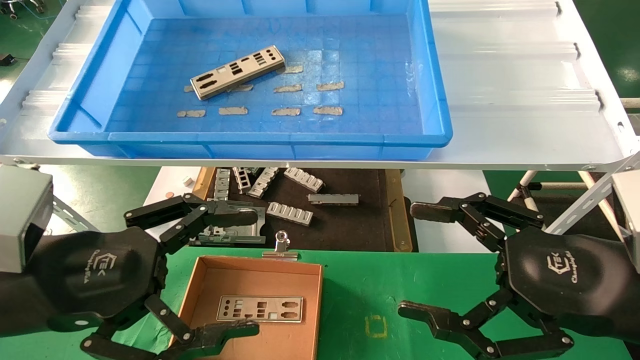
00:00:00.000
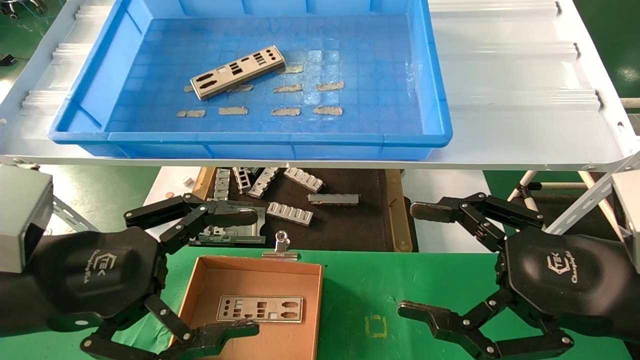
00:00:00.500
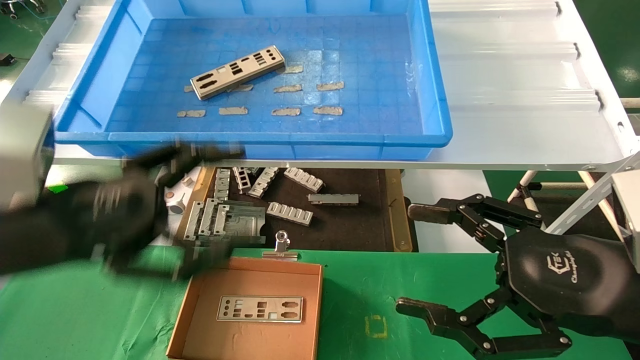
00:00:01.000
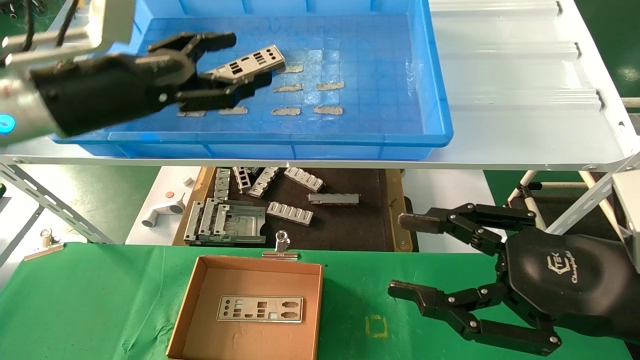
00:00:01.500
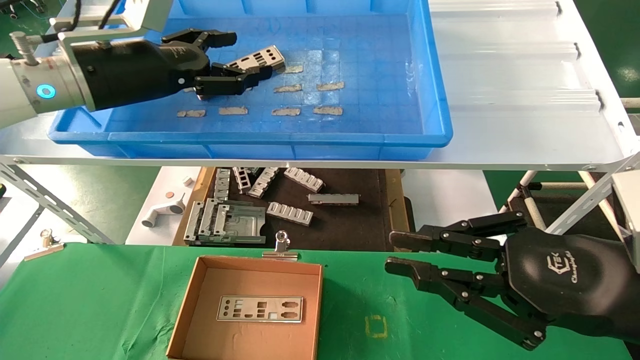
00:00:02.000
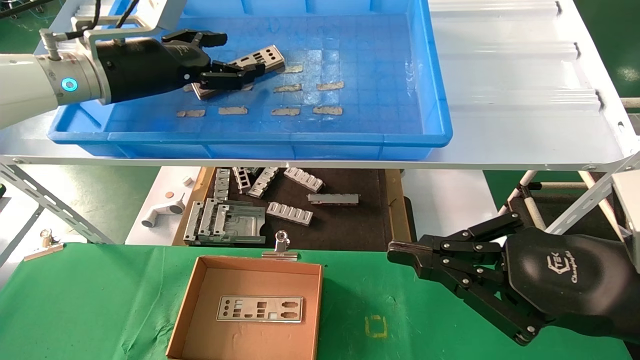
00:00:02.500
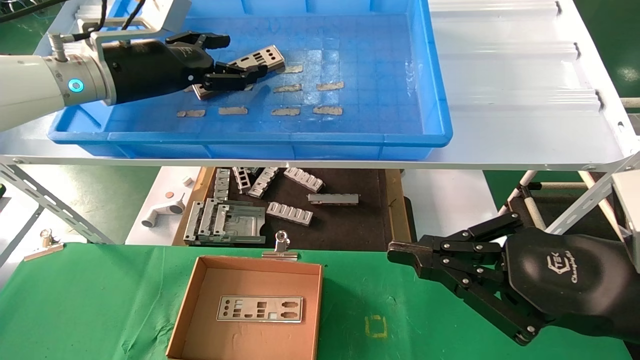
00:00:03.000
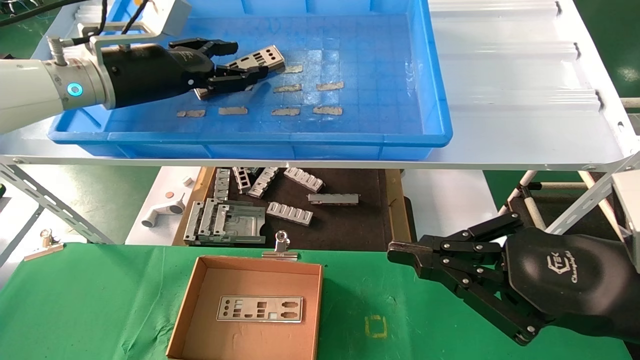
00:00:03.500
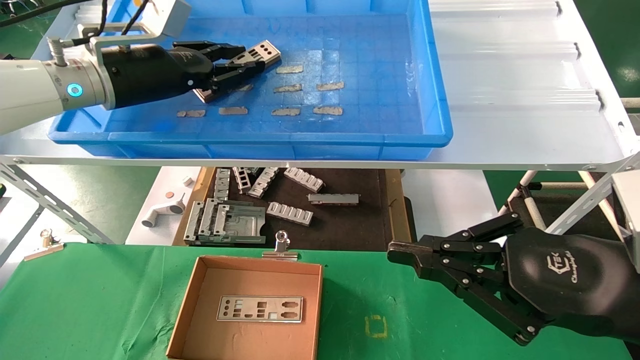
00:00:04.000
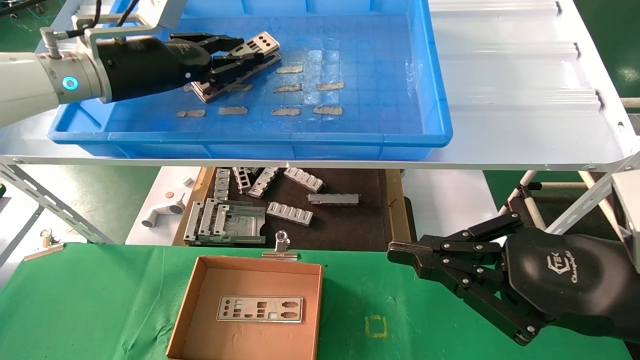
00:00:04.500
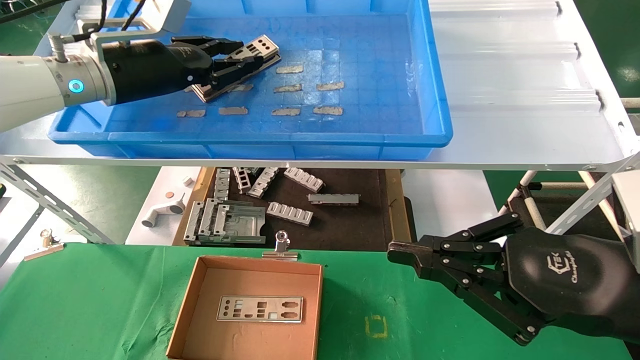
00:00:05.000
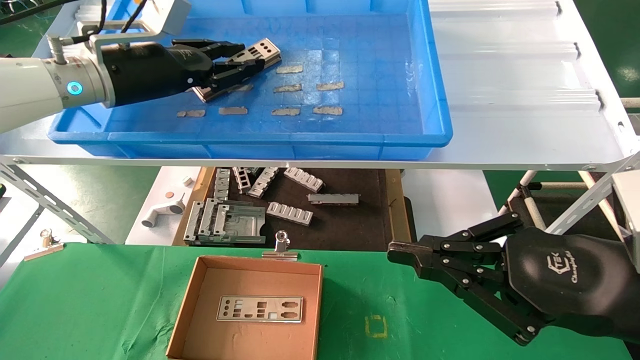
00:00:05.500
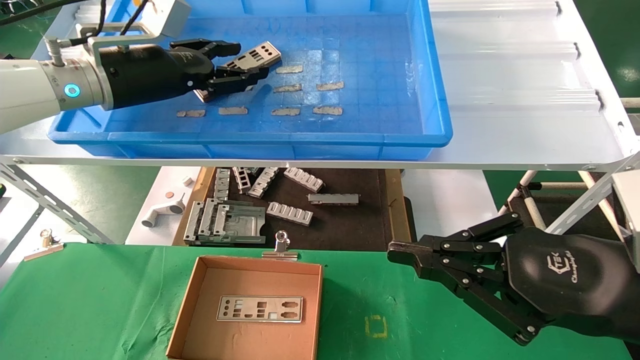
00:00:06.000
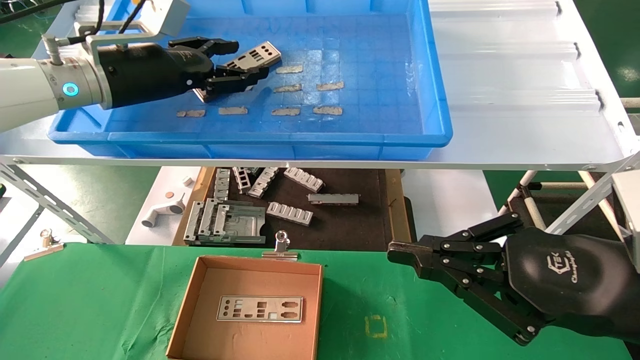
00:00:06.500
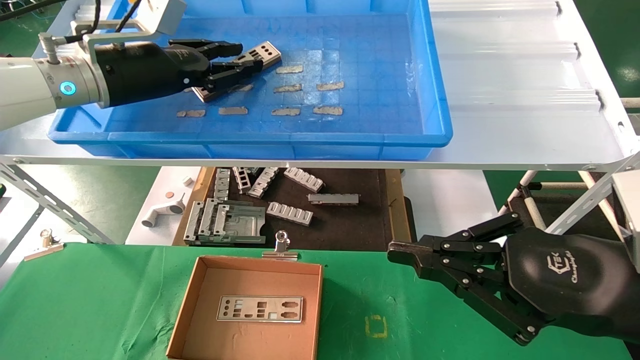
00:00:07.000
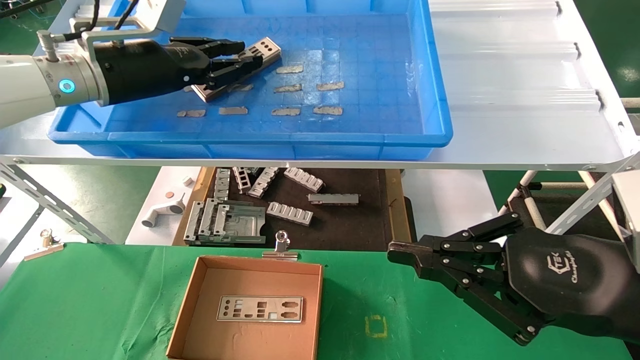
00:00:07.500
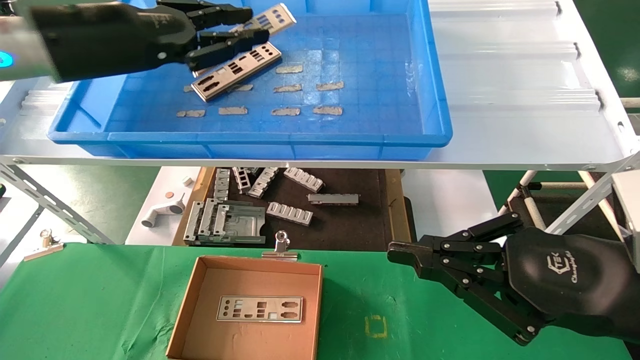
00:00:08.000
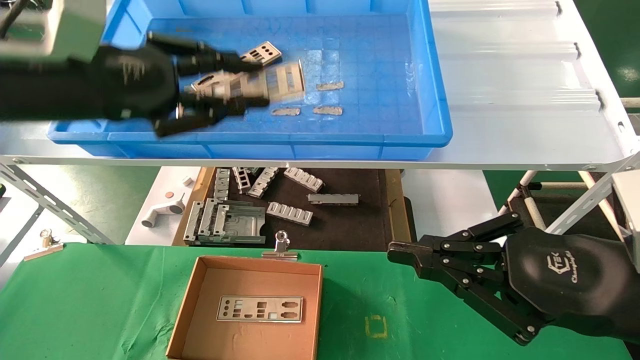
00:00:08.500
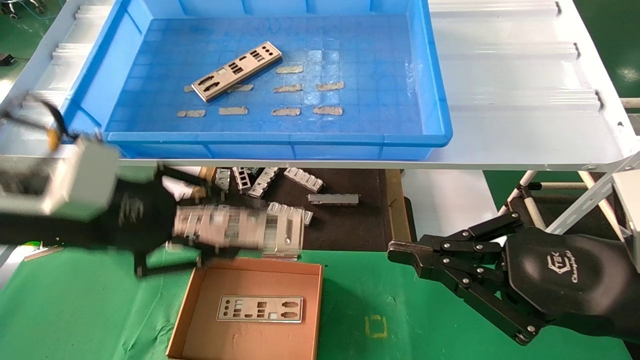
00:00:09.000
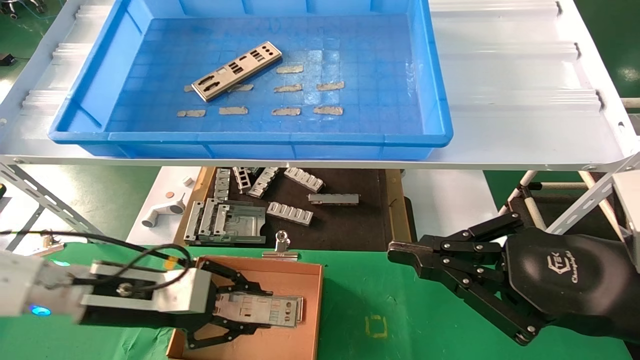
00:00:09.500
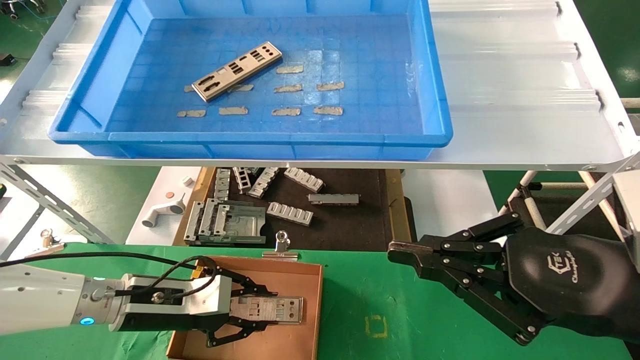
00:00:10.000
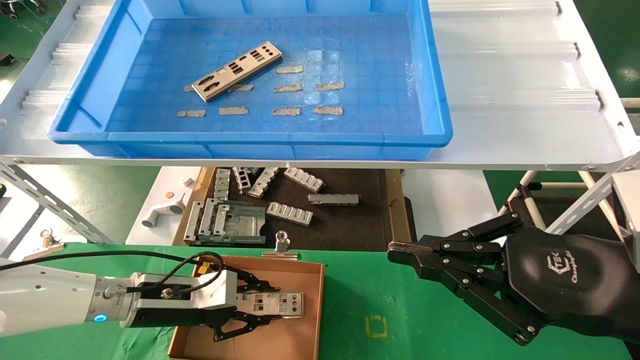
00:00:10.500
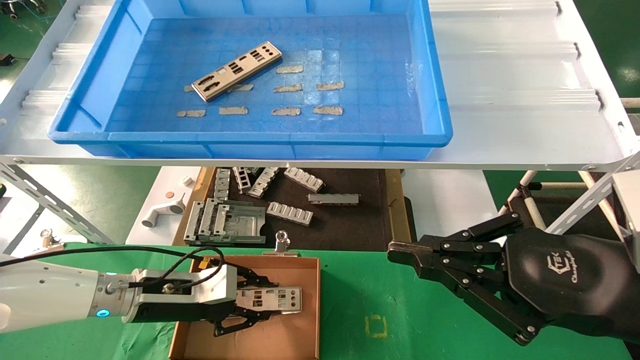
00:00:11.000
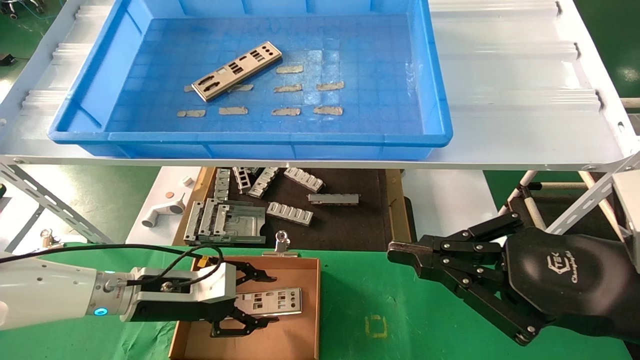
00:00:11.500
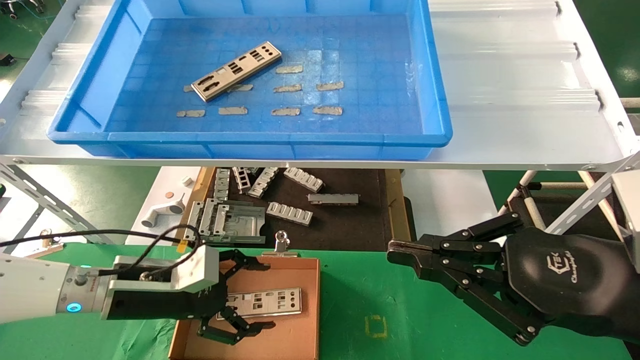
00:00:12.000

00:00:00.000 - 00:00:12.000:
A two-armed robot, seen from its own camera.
Task of the whole recording: pick up the parts on the tray and put them in the cardboard box.
Step, 00:00:01.500 - 00:00:07.500: Pick up the IO bracket from the container box.
Step, 00:00:08.000 - 00:00:11.000: Place the IO bracket into the ingredient slot.
00:00:00.000 - 00:00:02.000: The right gripper closes up. Meanwhile the left gripper moves forward and upward, roughly 25 cm.
00:00:02.000 - 00:00:04.000: The left gripper closes up.
00:00:04.000 - 00:00:06.000: Both grippers stay put.
00:00:06.000 - 00:00:08.000: The left gripper heads backward, covering roughly 5 cm, and closes up.
00:00:08.000 - 00:00:10.000: The left gripper is displaced downward by approximately 30 cm.
00:00:10.000 - 00:00:12.000: The left gripper opens up.

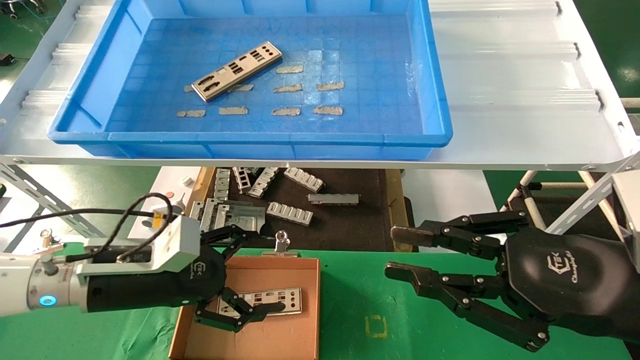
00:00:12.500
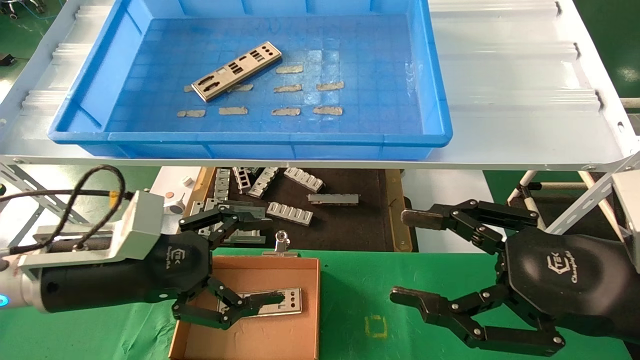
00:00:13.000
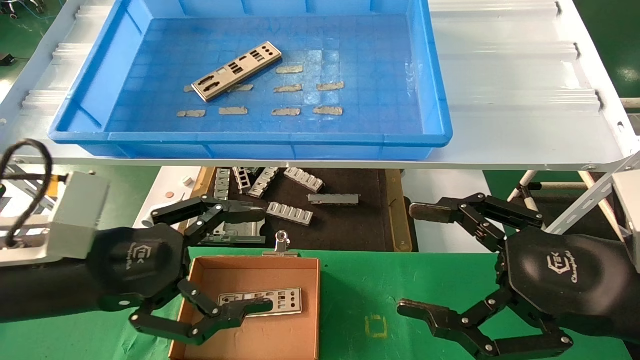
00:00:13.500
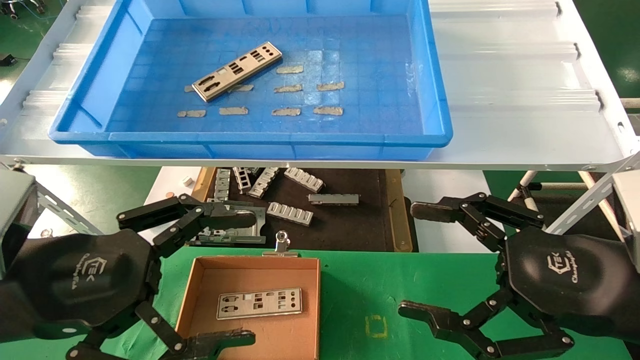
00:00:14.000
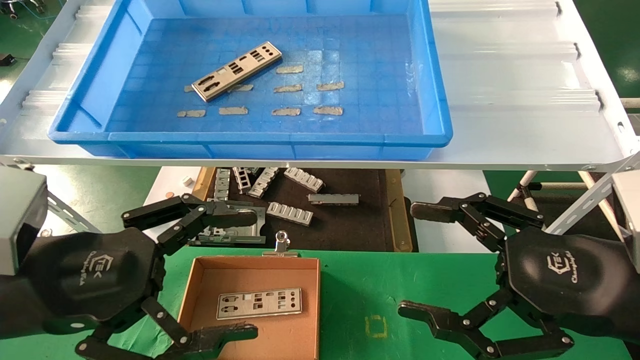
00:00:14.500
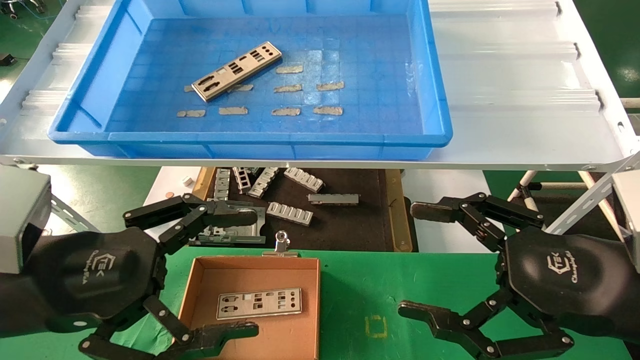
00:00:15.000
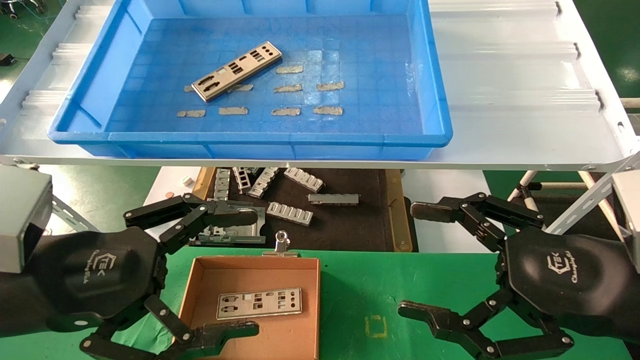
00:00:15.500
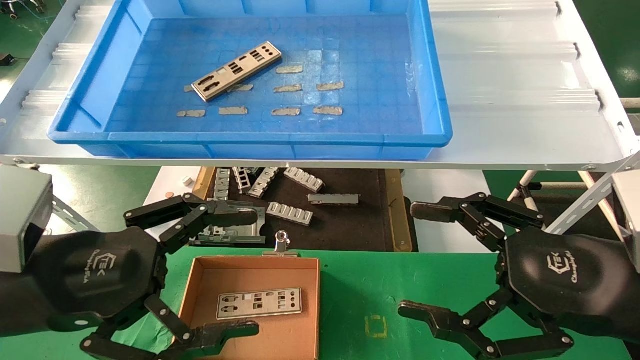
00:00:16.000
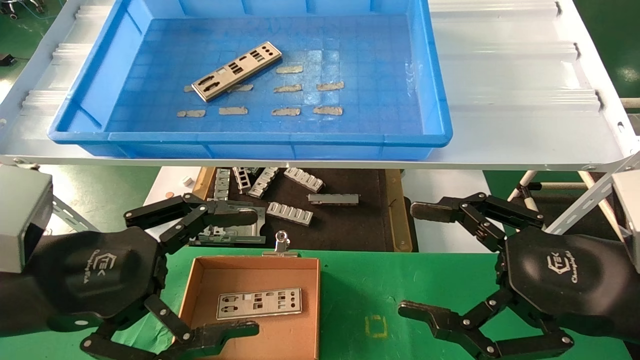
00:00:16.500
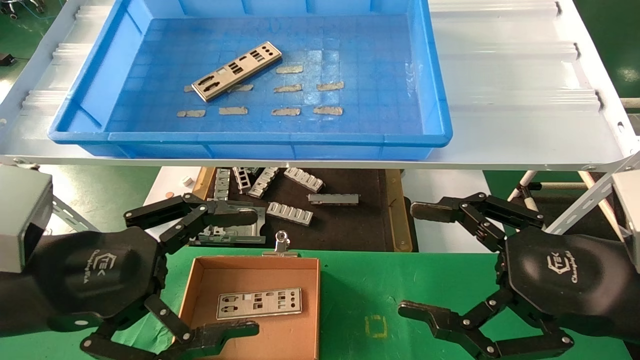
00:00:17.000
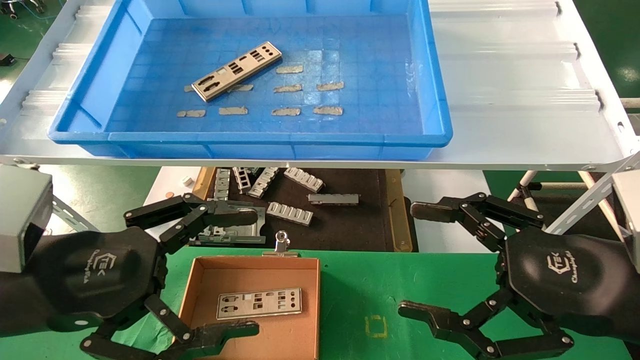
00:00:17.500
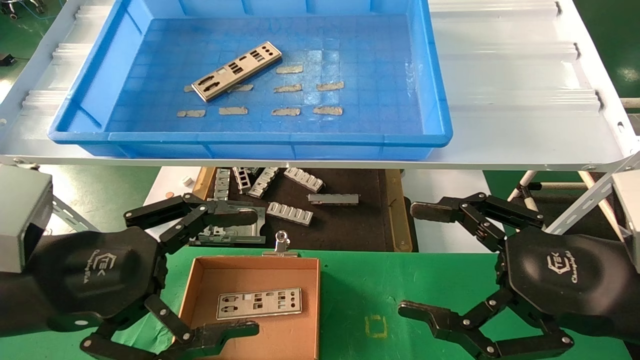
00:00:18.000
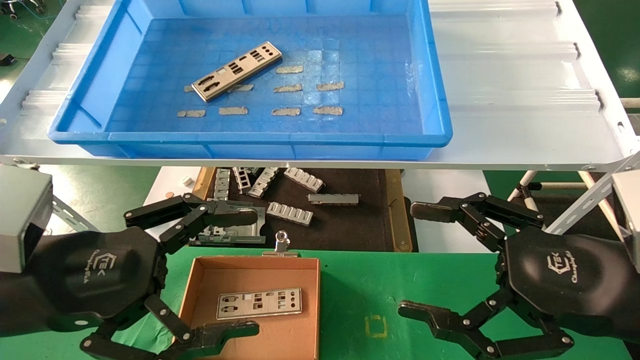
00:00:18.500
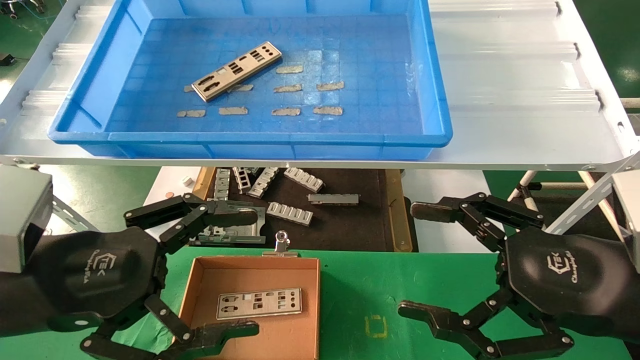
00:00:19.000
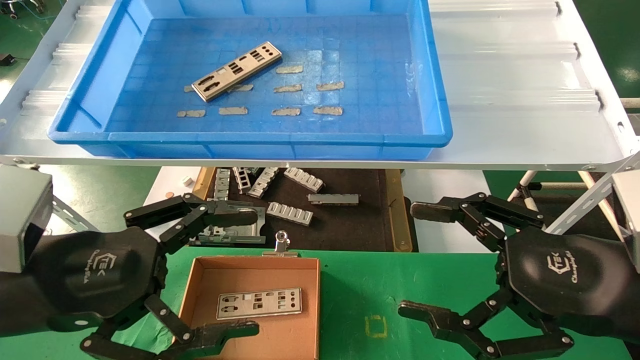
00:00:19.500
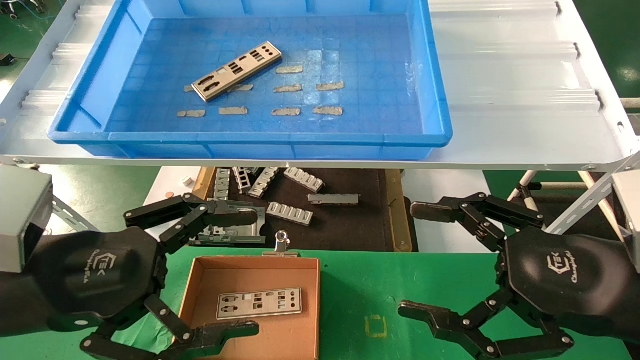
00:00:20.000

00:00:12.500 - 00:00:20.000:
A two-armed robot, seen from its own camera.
Task of the whole recording: pick up the parts on the tray and put them in the cardboard box.
00:00:12.500 - 00:00:14.500: The right gripper opens up. Meanwhile the left gripper is displaced backward and upward by approximately 15 cm.
00:00:14.500 - 00:00:20.000: The two grippers keep their place.
